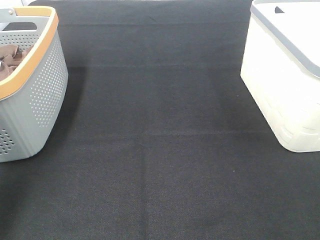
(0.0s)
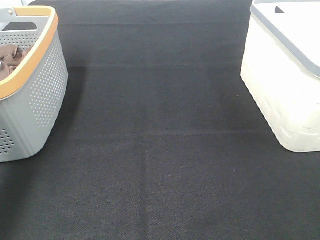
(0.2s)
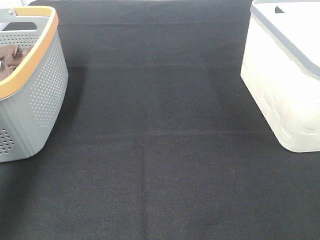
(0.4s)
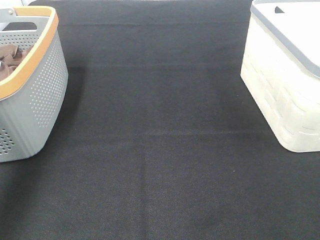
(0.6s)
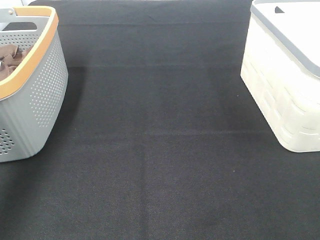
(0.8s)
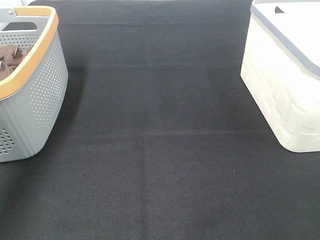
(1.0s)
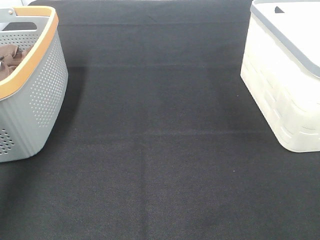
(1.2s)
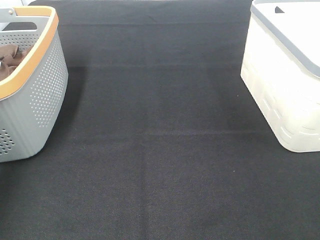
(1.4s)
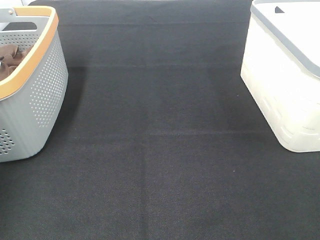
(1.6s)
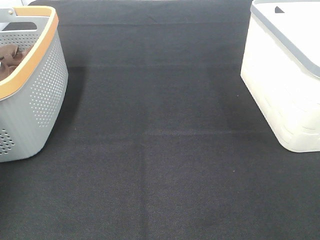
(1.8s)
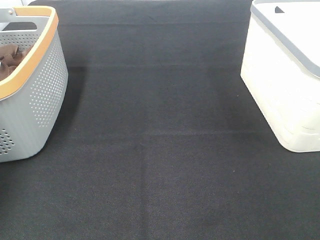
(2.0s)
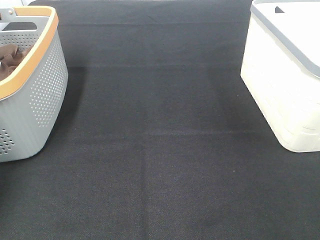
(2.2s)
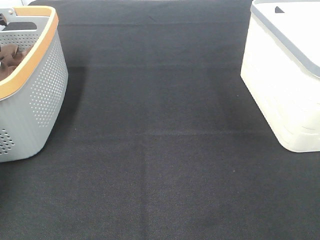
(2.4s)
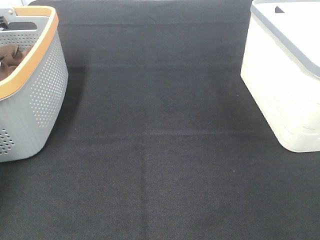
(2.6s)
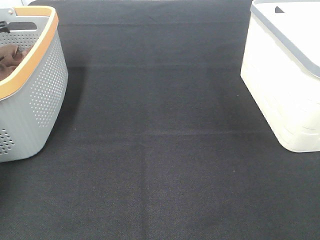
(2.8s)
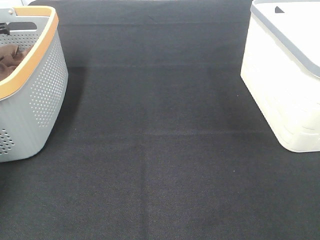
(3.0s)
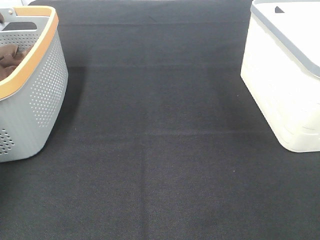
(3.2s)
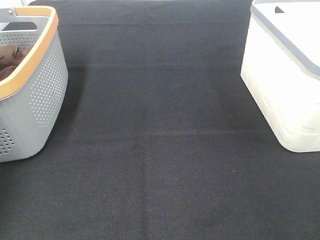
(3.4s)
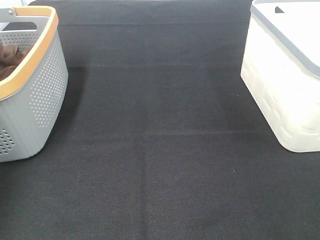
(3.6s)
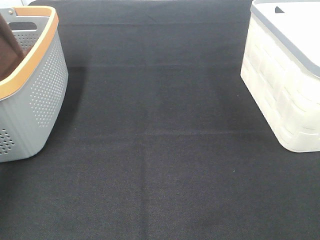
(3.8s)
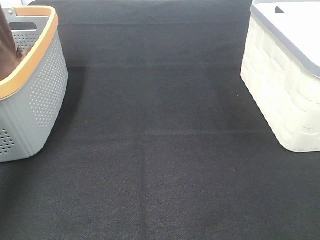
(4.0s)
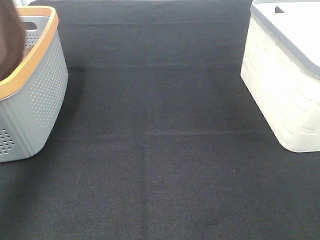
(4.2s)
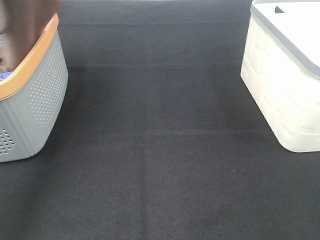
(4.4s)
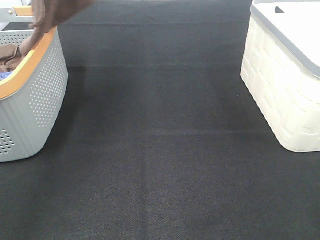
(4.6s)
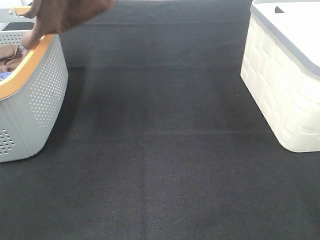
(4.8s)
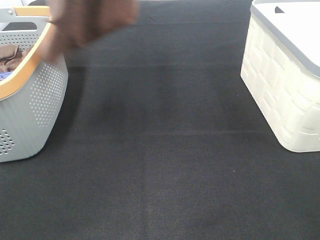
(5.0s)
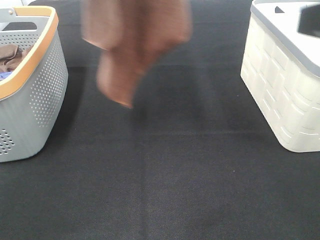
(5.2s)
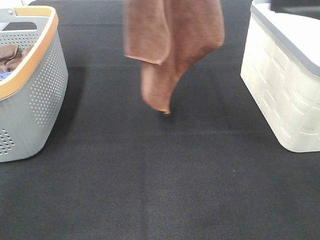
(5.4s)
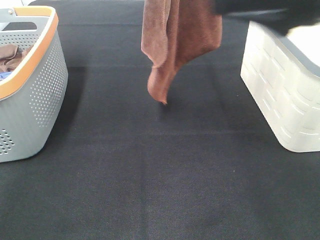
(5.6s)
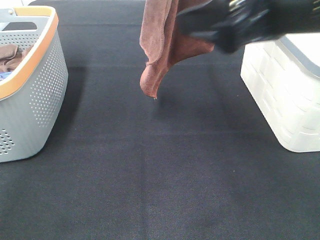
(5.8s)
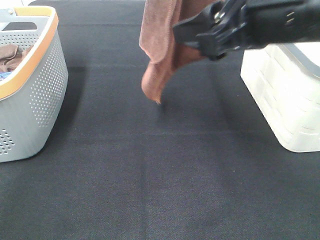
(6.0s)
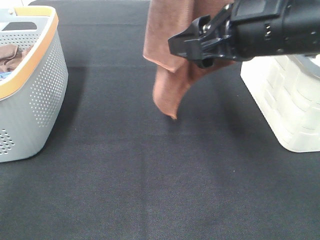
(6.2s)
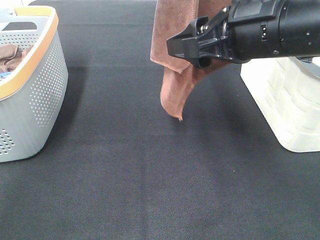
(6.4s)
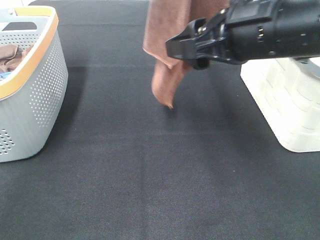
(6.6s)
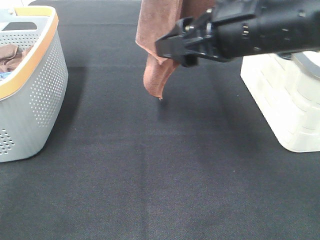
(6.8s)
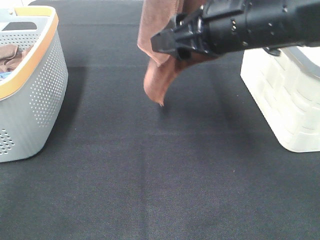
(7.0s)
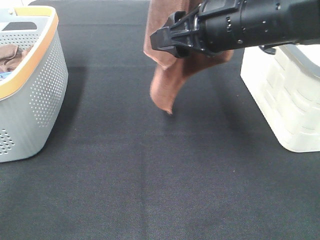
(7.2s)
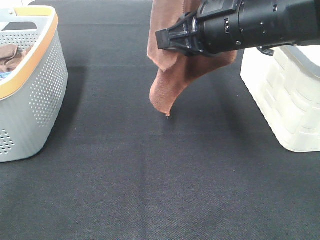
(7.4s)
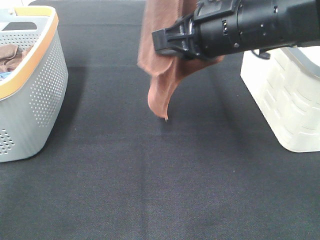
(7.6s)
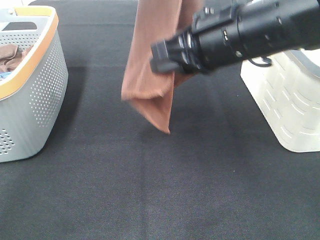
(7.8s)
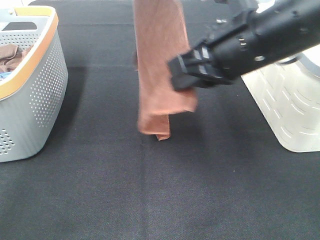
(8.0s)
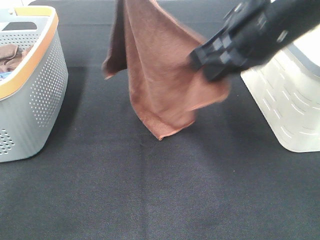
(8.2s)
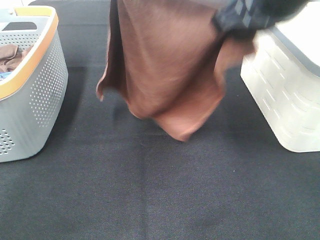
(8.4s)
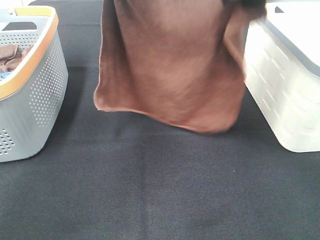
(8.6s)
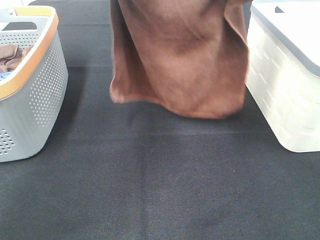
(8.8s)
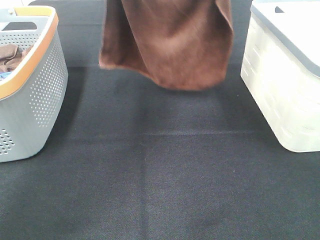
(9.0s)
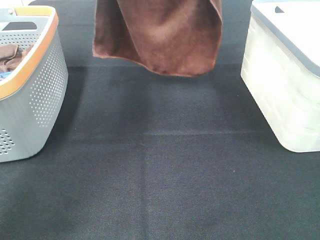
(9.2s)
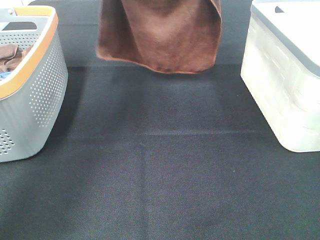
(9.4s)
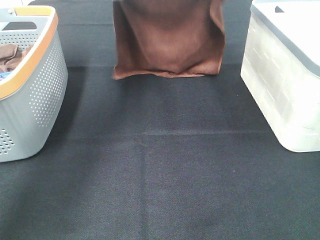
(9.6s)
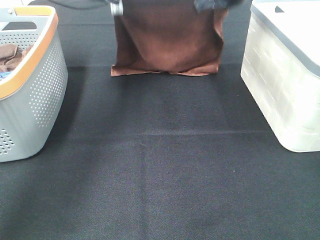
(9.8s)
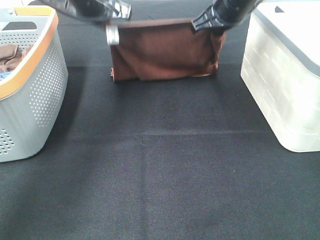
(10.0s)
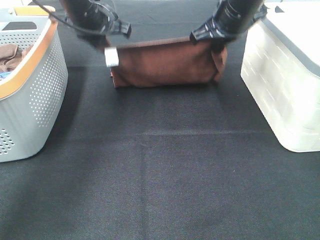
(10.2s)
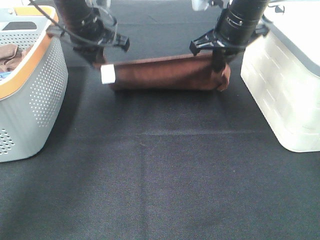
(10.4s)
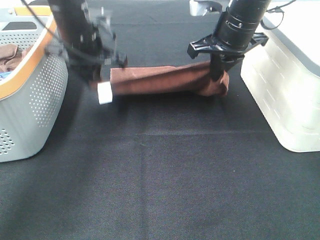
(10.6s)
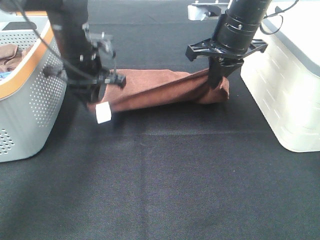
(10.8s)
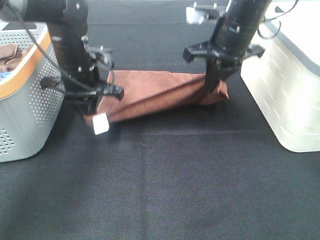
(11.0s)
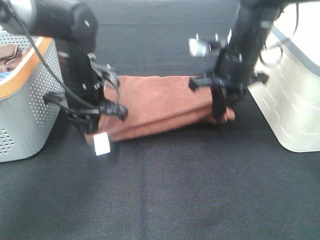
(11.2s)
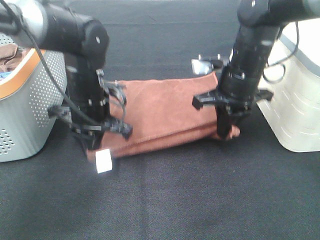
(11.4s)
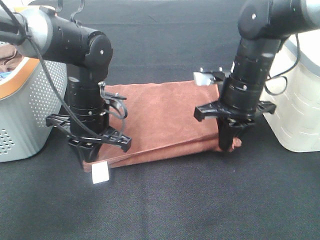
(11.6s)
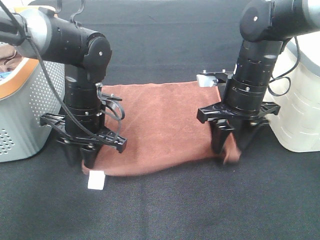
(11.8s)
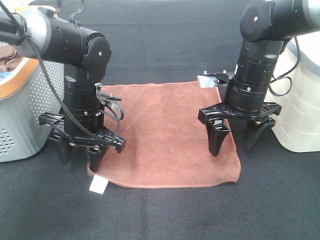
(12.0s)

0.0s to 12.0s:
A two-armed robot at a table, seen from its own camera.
Task of the whole recording: Remove the towel and place it.
Step, 3.4s to 5.8s: Right hand: grab a corner of the brown towel and straighten it.
Step, 6.0s to 8.4s: Right hand: spread the brown towel flat on the table.
Step, 6.0s to 8.8s: Left hand: spread the brown towel flat on the table.
3.0s to 4.4s: The left gripper moves upward, backward and to the right, about 40 cm.
4.4s to 6.0s: The left gripper goes approximately 20 cm to the right. Meanwhile the right gripper goes approximately 25 cm forward and to the left.
6.0s to 7.6s: The right gripper changes place by roughly 5 cm, and closes up.
7.6s to 9.0s: The right gripper moves upward and forward, roughly 15 cm. The left gripper goes roughly 15 cm downward and forward.
9.0s to 10.4s: The left gripper is displaced downward by some 15 cm. Meanwhile the right gripper goes some 15 cm downward and forward.
10.4s to 12.0s: The two grippers go about 15 cm downward and backward. The left gripper opens up; the right gripper opens up.

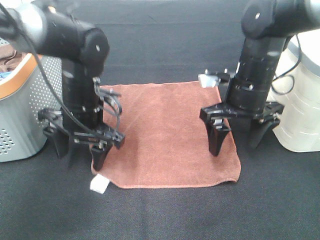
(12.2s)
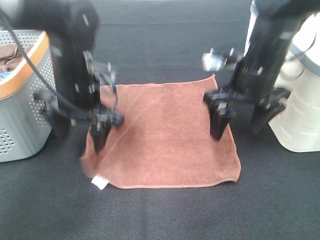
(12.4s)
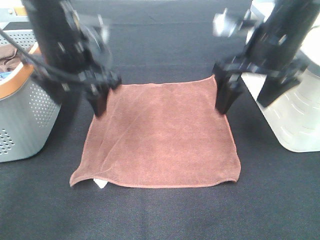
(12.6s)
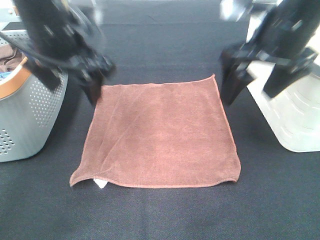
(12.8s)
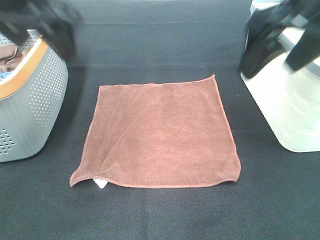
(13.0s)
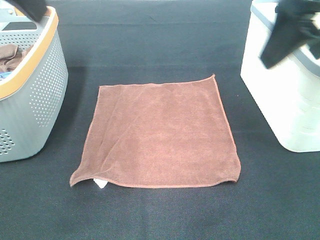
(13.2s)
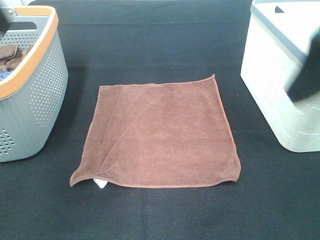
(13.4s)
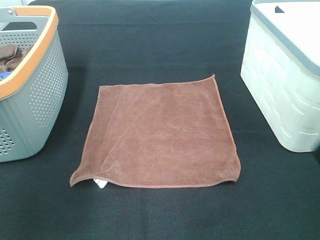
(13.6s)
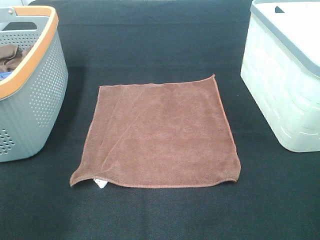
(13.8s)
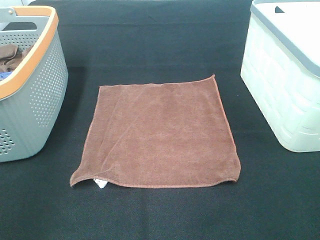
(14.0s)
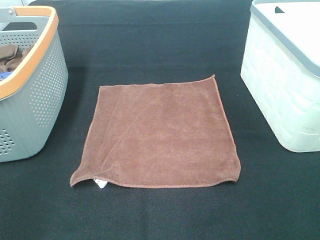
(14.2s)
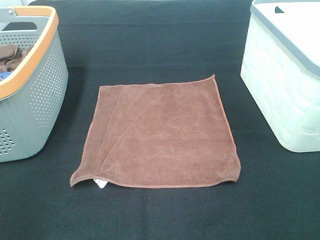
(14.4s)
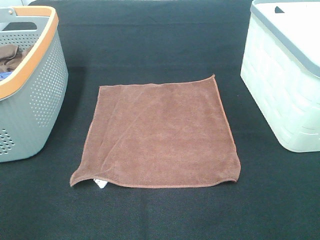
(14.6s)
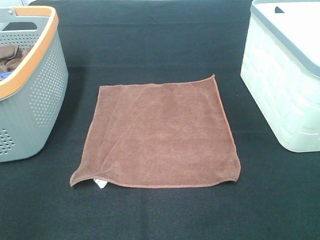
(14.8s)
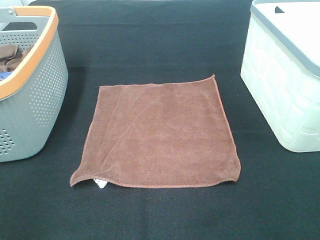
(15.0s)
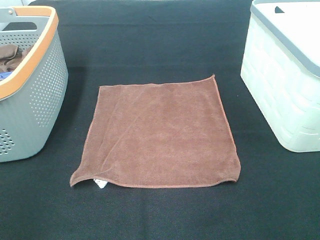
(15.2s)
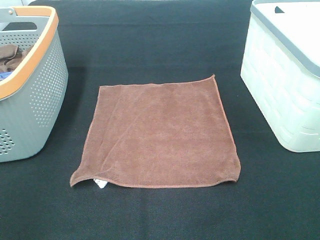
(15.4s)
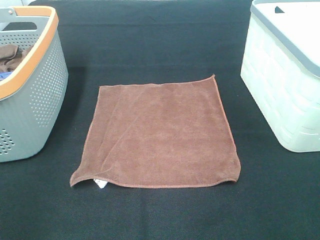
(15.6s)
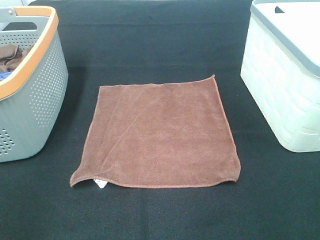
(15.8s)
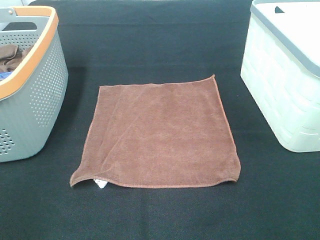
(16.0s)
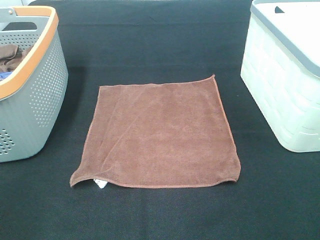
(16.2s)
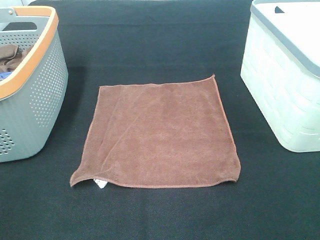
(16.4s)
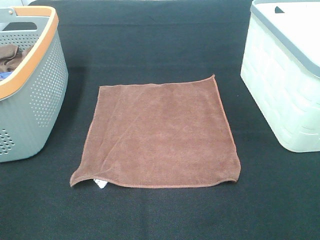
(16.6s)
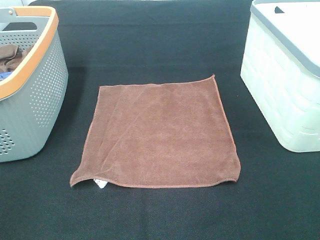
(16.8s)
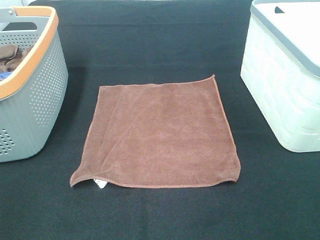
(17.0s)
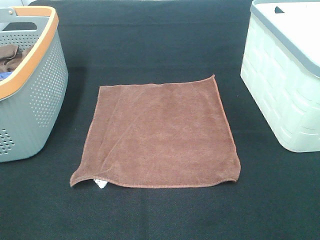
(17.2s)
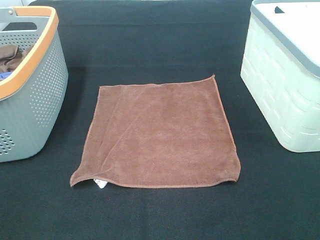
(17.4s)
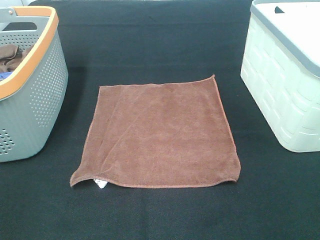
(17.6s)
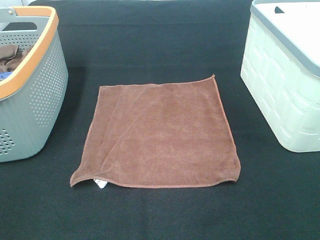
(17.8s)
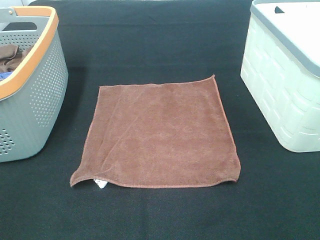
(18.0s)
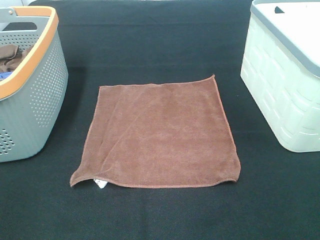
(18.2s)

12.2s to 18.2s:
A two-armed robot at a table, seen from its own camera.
Task of the whole recording: Remove the towel and place it.
12.2s to 13.8s: The right gripper shifts about 25 cm backward and upward. The left gripper is displaced backward, upward and to the left by some 30 cm.

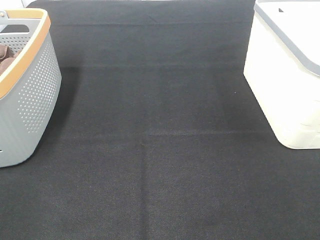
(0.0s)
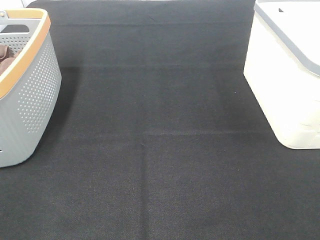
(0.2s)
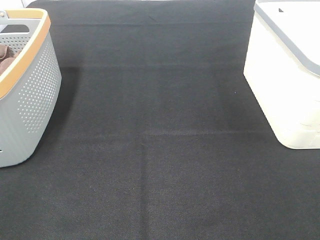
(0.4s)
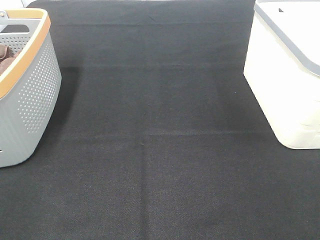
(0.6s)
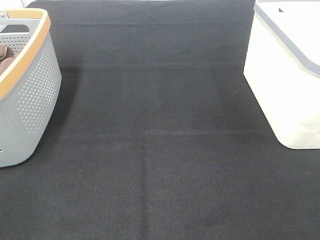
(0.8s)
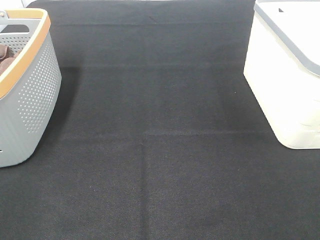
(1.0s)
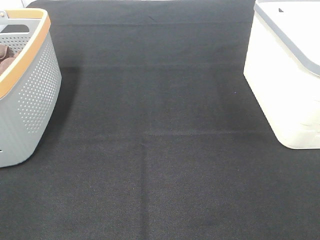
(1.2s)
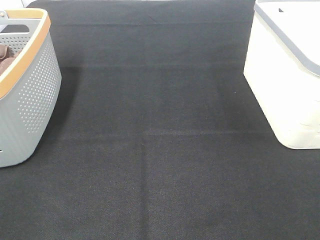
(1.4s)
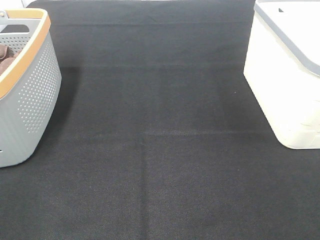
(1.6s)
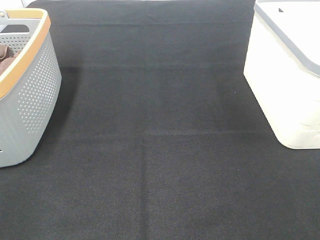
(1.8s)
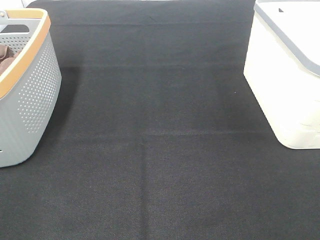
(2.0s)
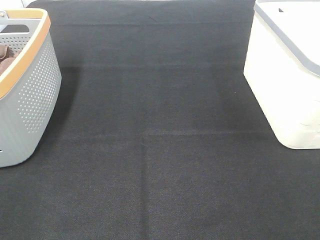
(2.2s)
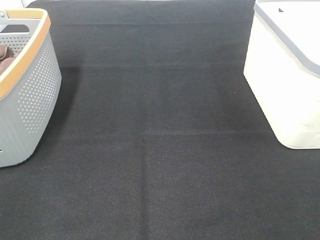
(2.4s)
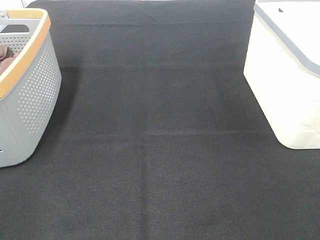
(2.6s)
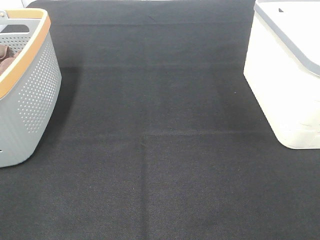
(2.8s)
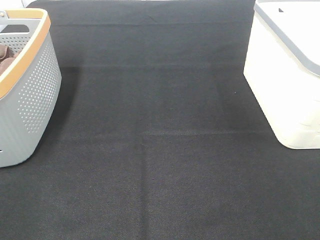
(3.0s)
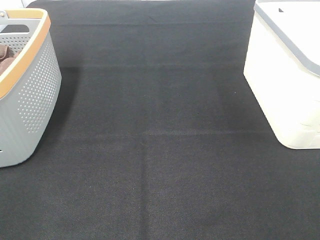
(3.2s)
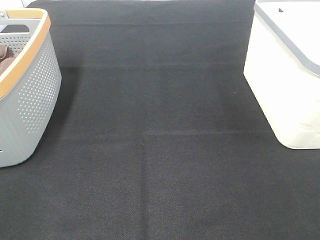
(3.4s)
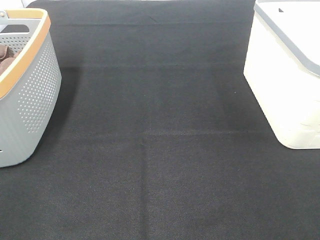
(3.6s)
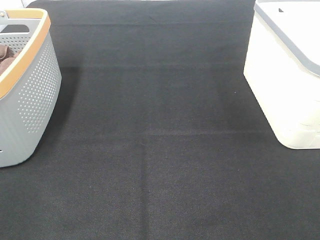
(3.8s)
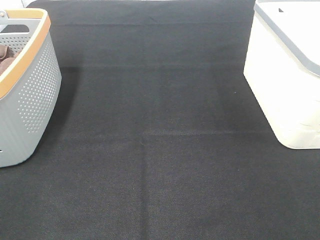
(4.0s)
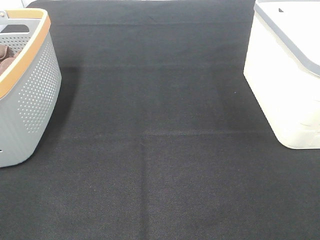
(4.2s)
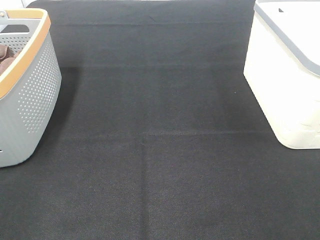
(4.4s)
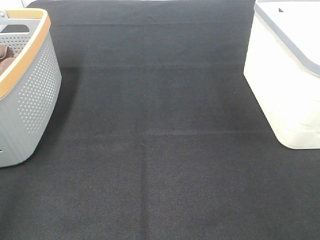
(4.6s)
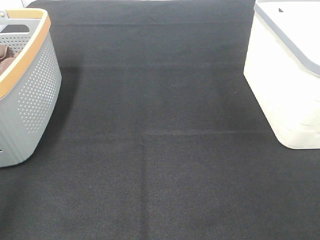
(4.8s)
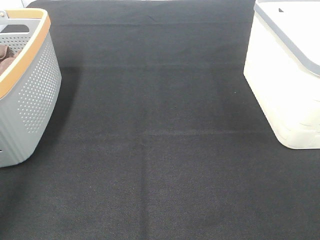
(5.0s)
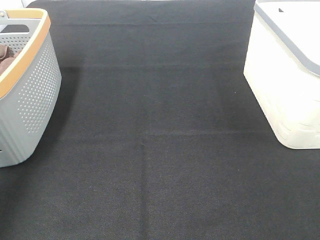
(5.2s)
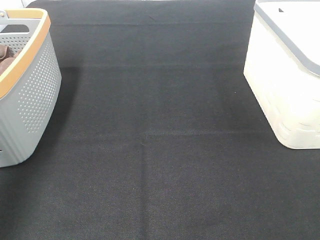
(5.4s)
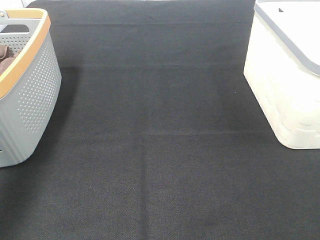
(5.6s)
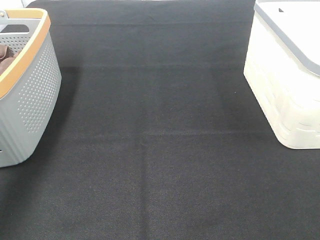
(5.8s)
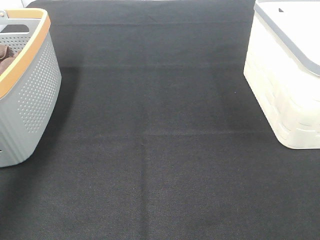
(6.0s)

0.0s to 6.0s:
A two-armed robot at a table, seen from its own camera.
Task of the whole recording: Remove the towel and place it.
0.0s to 3.0s: Neither gripper changes place.
4.4s to 6.0s: The left gripper goes some 35 cm forward.
